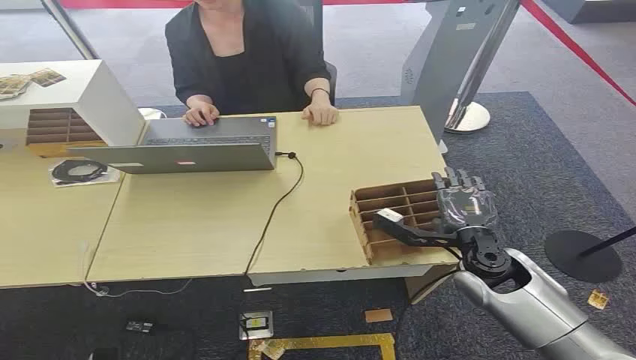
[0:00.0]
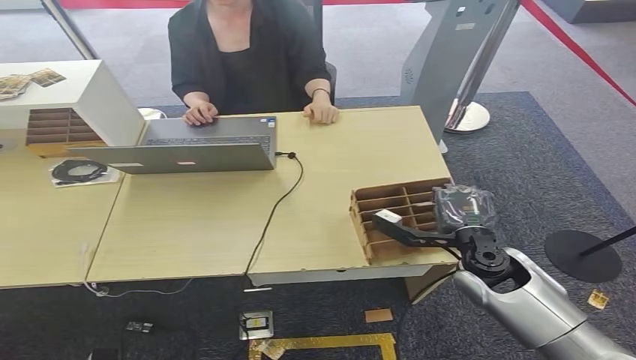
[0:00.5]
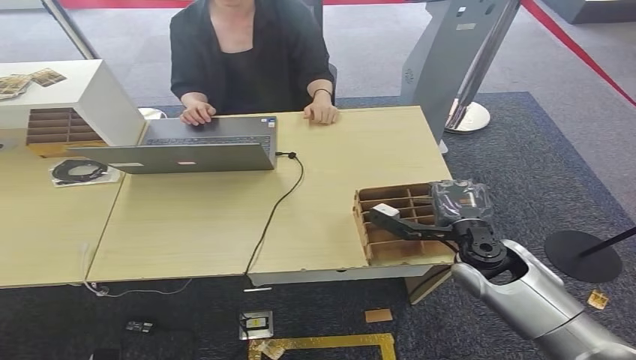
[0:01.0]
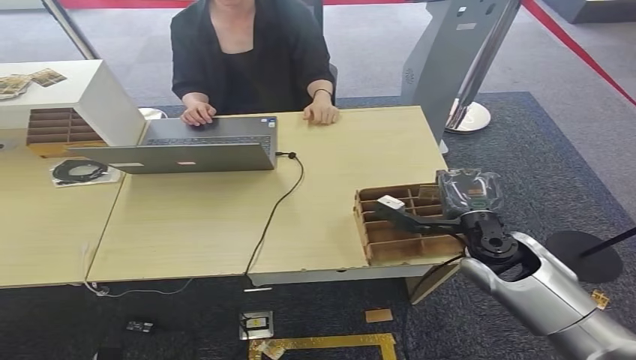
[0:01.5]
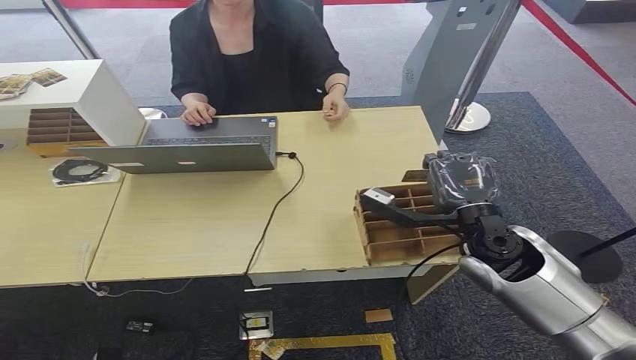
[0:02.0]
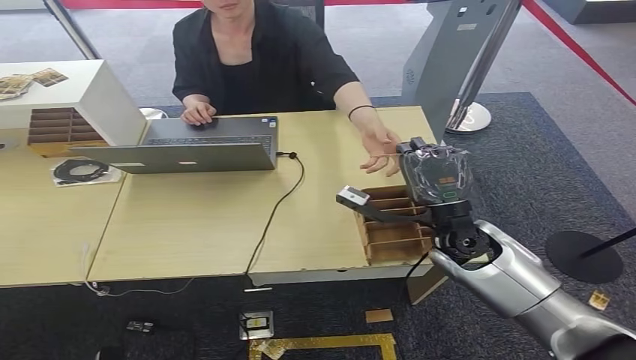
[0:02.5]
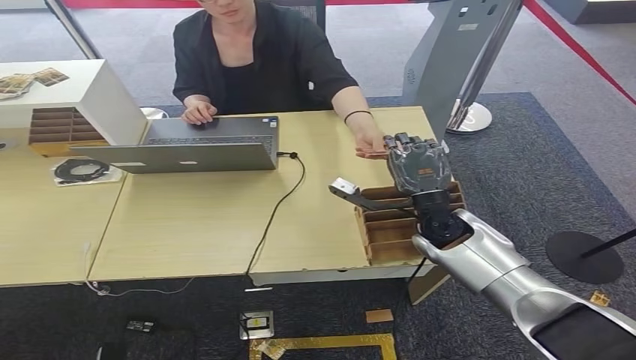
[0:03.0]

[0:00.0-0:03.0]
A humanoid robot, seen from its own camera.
Step, 0:00.0 to 0:01.0: Pick up the key card from the card box.
Step, 0:01.5 to 0:03.0: Hand the key card to the target.
0:01.5 to 0:03.0: The right hand heads forward and to the left, covering about 10 cm.
